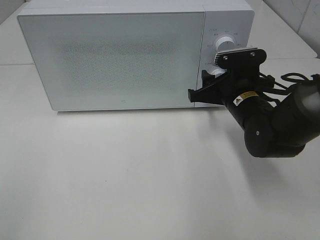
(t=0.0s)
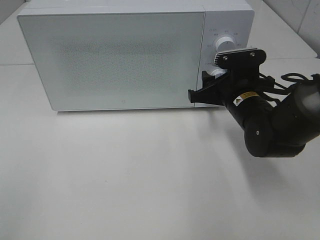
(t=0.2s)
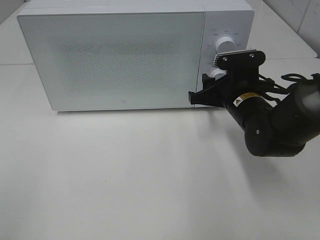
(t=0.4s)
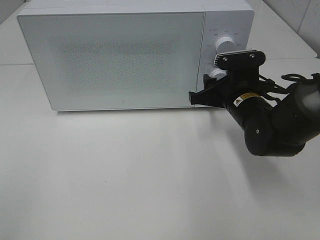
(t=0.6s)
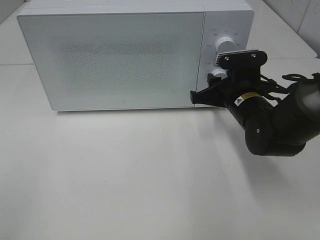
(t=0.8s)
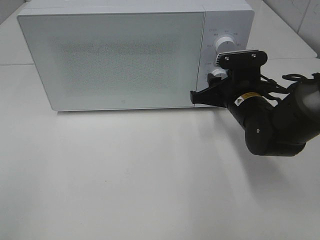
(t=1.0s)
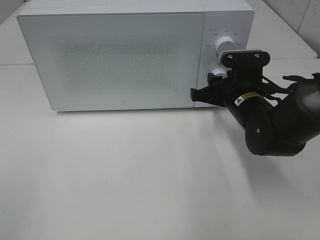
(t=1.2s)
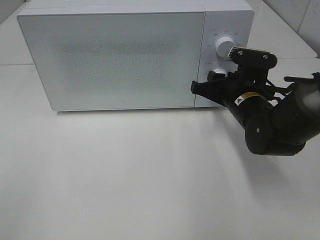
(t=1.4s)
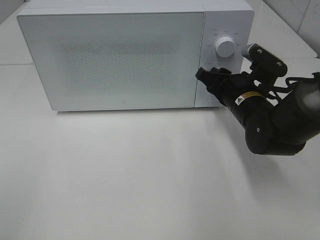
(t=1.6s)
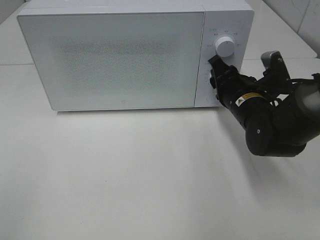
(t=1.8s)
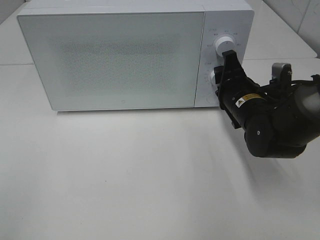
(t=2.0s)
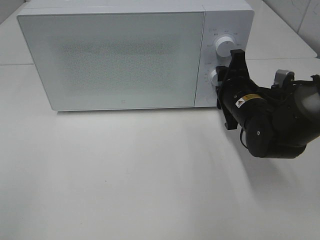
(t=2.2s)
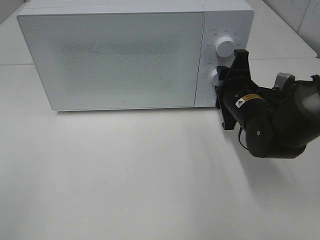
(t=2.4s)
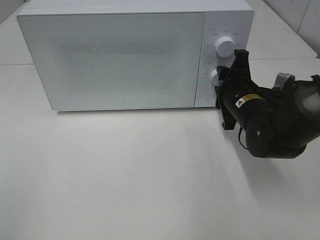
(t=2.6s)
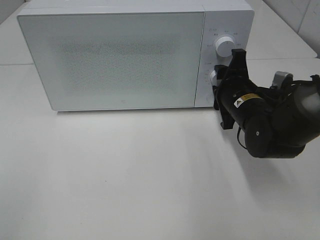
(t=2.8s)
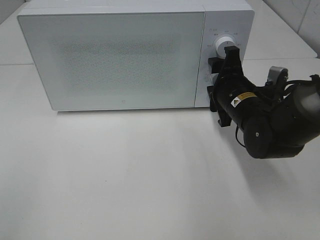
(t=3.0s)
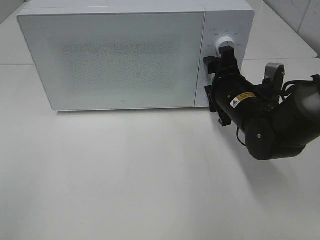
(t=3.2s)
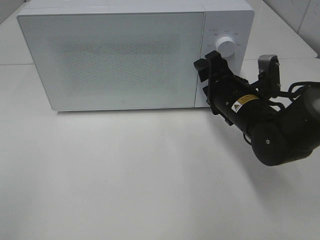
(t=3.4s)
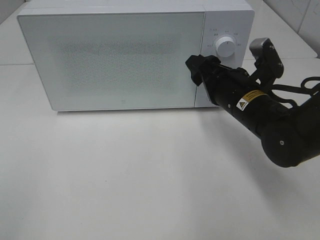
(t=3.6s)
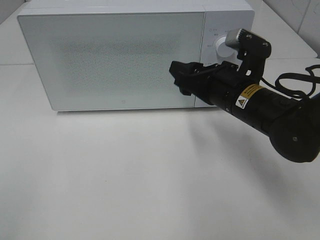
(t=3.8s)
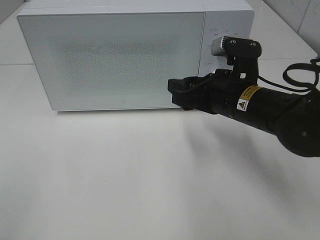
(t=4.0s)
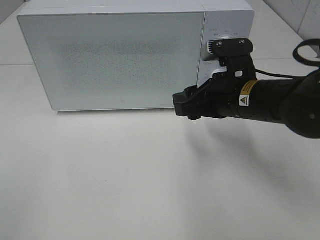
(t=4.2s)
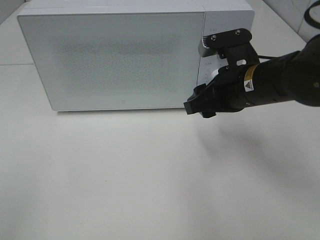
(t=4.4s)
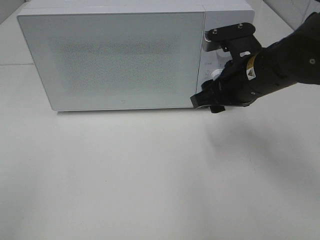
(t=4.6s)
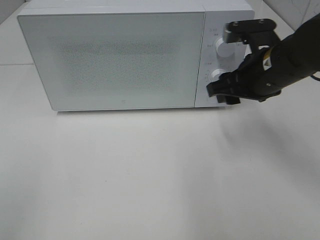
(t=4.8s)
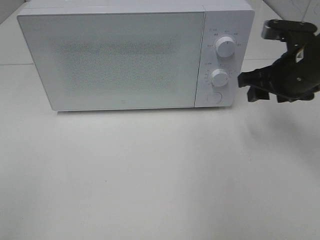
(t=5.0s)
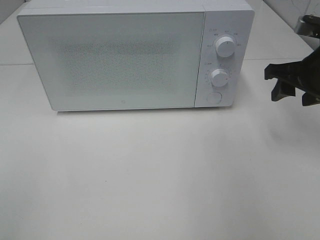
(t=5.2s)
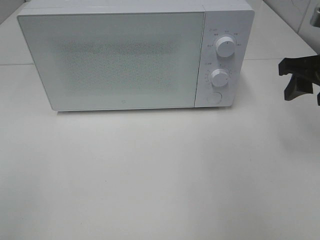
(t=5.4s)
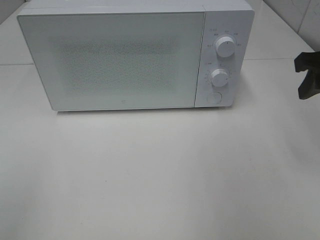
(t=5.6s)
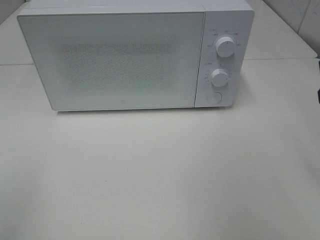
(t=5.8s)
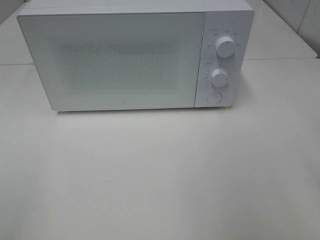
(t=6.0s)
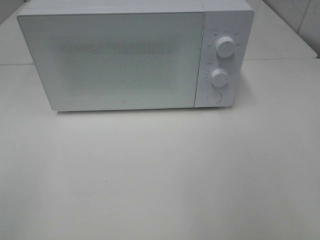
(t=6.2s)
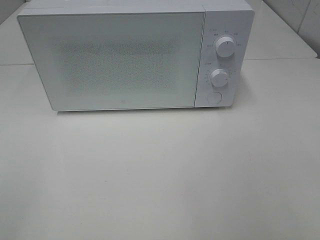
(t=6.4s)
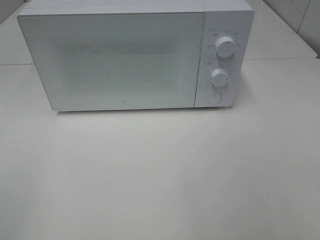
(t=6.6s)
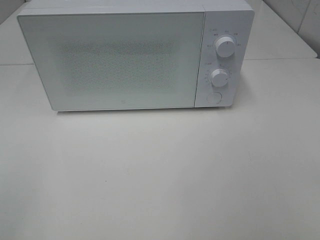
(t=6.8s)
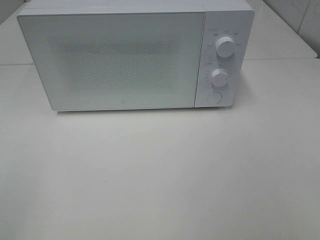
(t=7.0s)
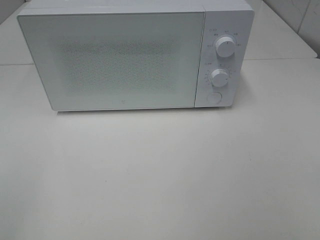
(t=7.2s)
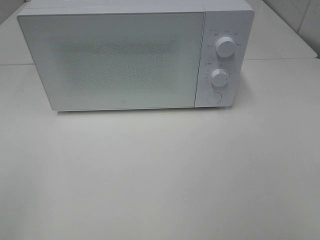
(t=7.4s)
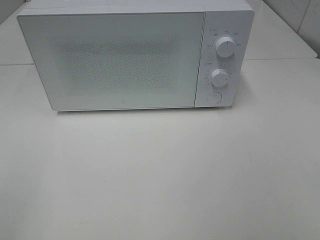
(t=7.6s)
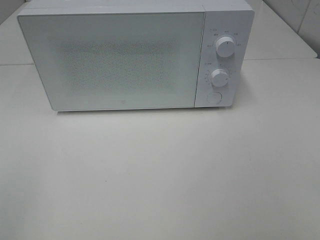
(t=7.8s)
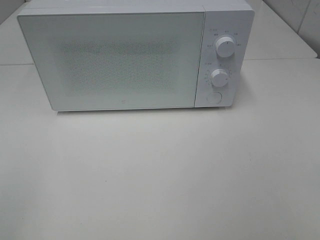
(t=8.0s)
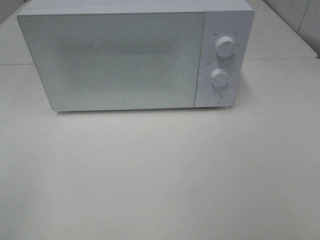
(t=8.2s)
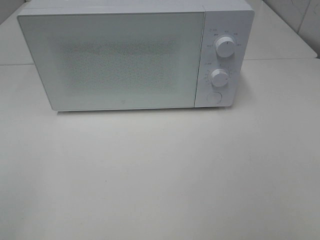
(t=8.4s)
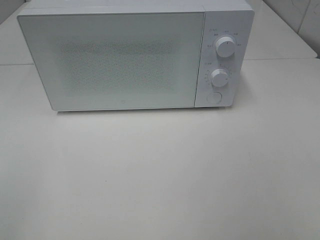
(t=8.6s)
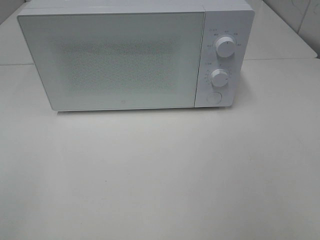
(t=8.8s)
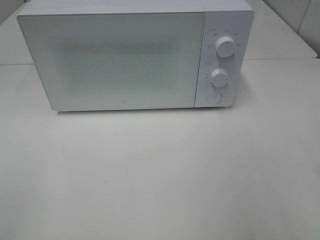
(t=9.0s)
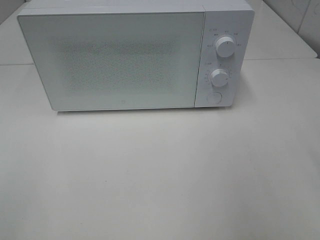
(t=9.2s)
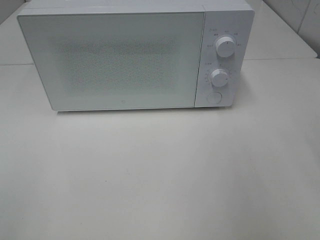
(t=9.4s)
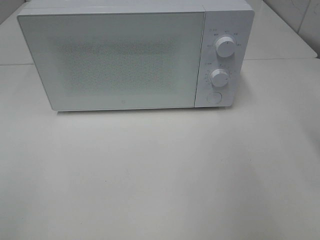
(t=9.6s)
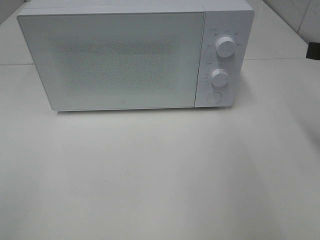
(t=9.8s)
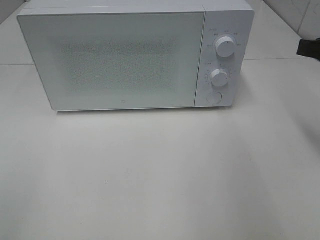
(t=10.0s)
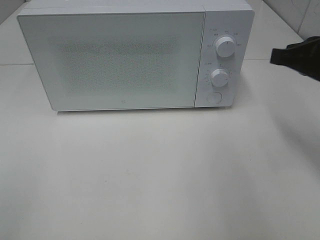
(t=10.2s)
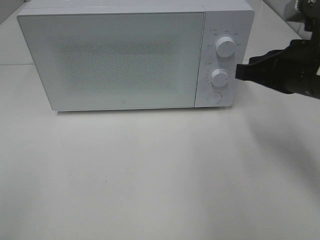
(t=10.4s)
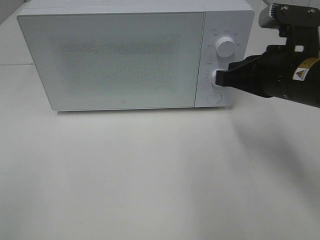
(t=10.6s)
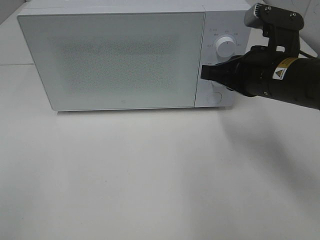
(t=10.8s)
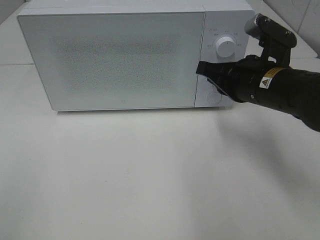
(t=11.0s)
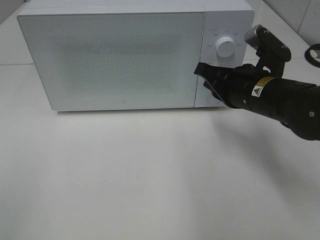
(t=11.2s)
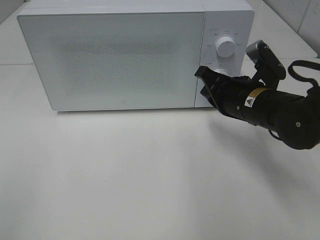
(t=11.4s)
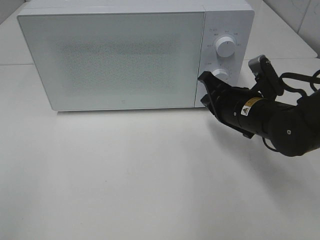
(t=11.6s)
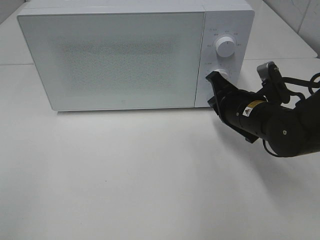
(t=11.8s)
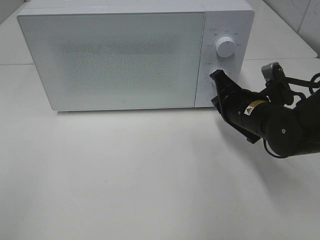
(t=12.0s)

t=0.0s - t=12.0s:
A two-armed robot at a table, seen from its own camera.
Task of the whole recording: Heat the burger.
Step, t=0.0s - t=2.8s: Right hand: twist timer button.
t=3.0s - t=4.4s: The right gripper is displaced upward by about 5 cm.
t=4.4s - t=6.0s: The right gripper goes roughly 20 cm to the right, backward and upward.
t=9.0s - t=10.4s: The right gripper shifts about 20 cm forward, to the left and downward, and closes its fingers.
t=10.4s - t=12.0s: The right gripper is displaced downward and forward by some 10 cm.

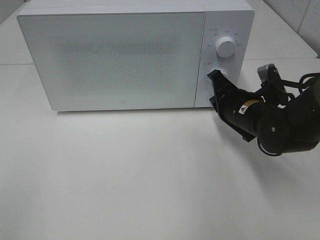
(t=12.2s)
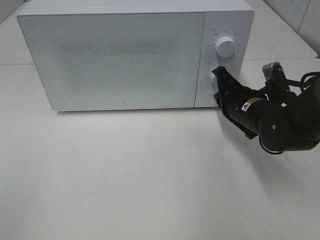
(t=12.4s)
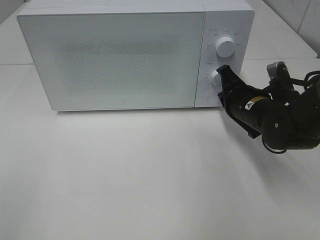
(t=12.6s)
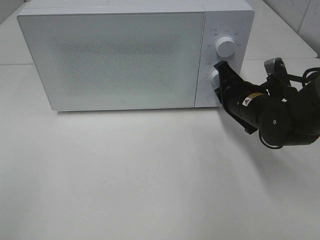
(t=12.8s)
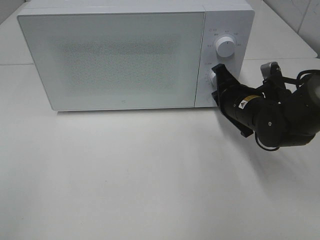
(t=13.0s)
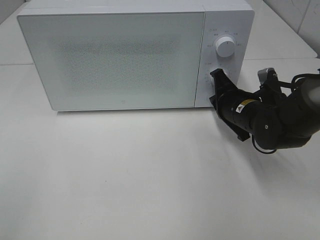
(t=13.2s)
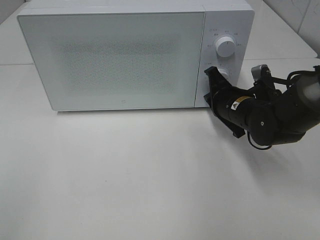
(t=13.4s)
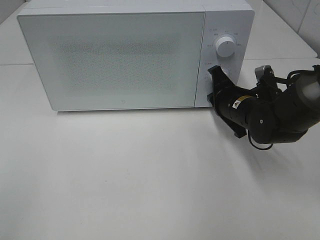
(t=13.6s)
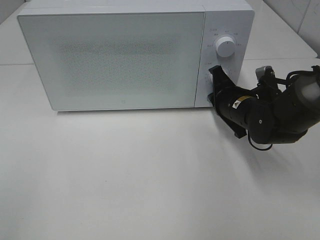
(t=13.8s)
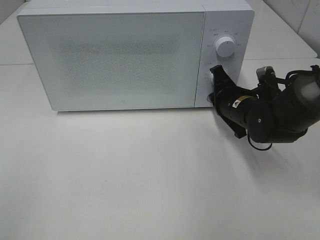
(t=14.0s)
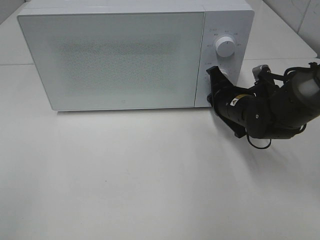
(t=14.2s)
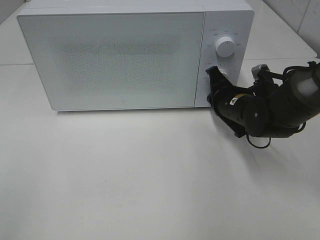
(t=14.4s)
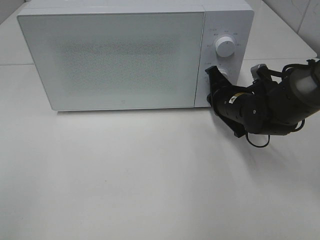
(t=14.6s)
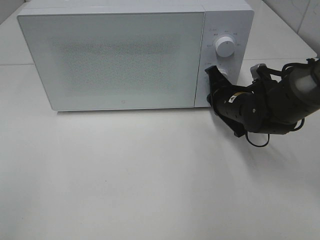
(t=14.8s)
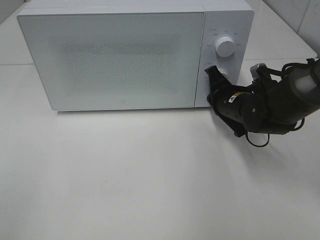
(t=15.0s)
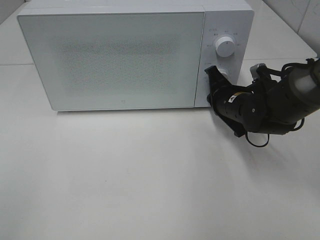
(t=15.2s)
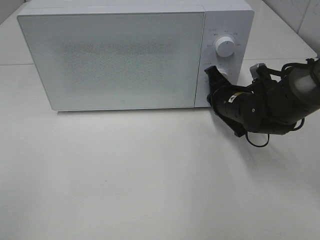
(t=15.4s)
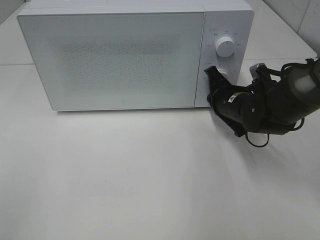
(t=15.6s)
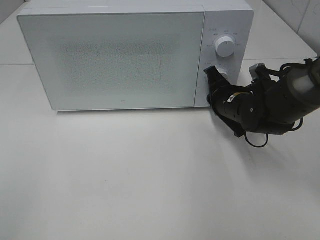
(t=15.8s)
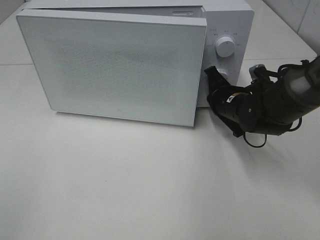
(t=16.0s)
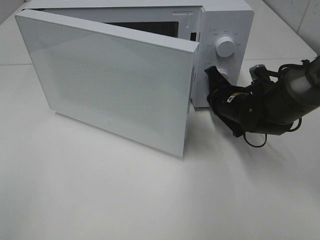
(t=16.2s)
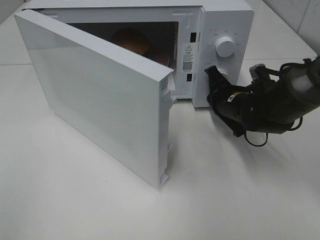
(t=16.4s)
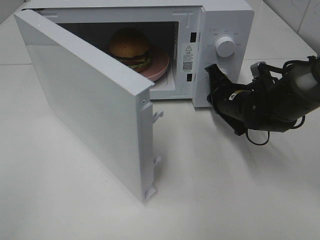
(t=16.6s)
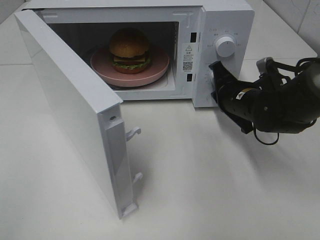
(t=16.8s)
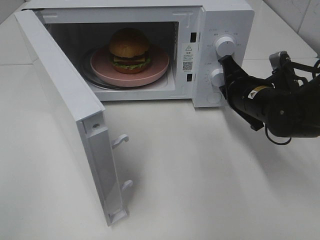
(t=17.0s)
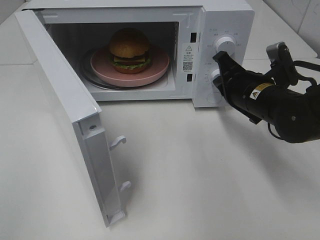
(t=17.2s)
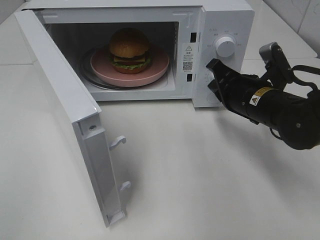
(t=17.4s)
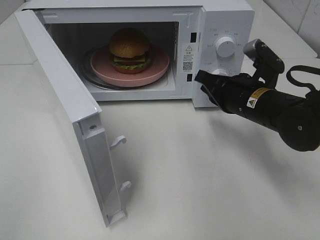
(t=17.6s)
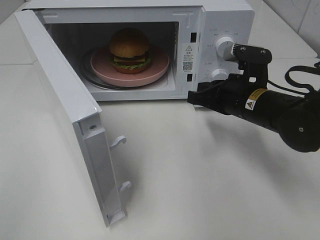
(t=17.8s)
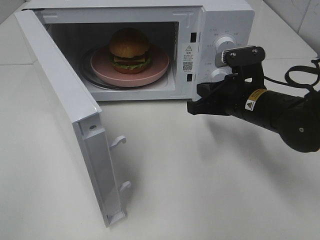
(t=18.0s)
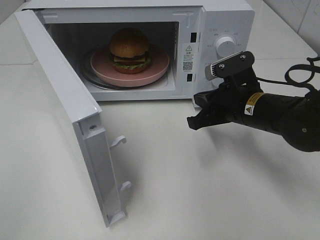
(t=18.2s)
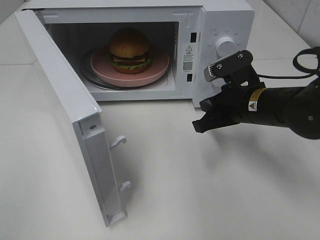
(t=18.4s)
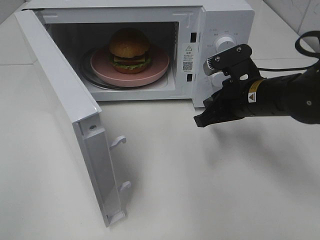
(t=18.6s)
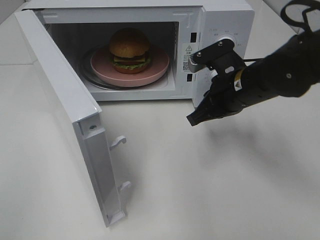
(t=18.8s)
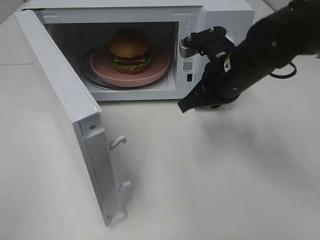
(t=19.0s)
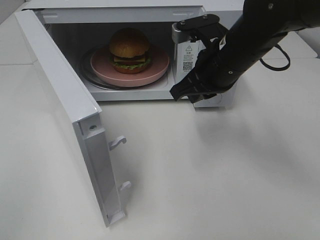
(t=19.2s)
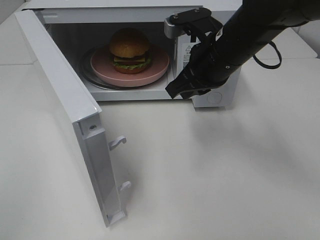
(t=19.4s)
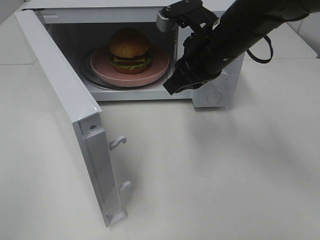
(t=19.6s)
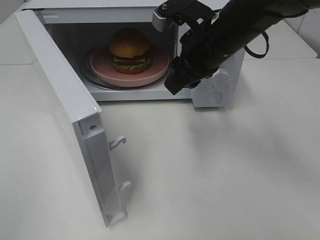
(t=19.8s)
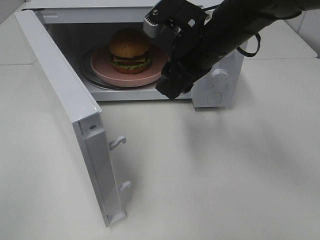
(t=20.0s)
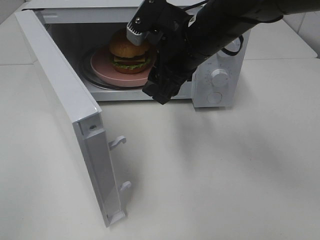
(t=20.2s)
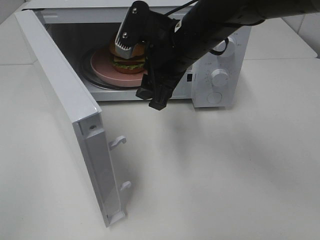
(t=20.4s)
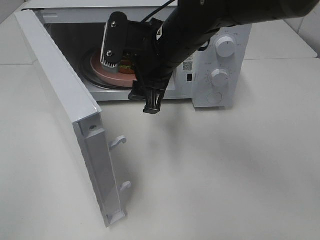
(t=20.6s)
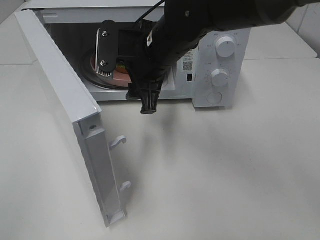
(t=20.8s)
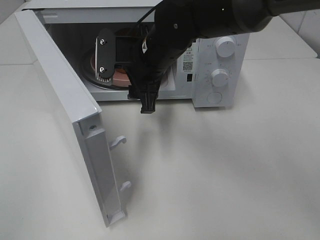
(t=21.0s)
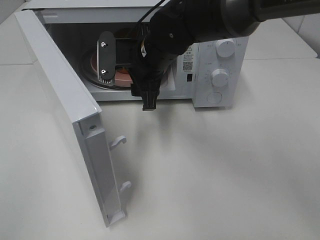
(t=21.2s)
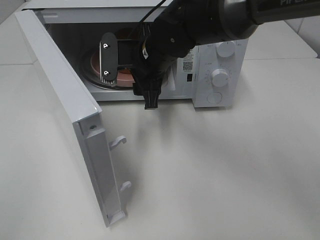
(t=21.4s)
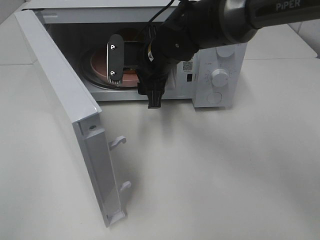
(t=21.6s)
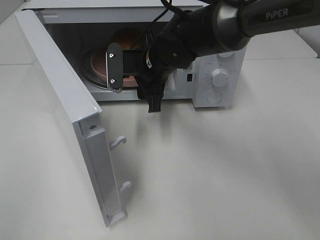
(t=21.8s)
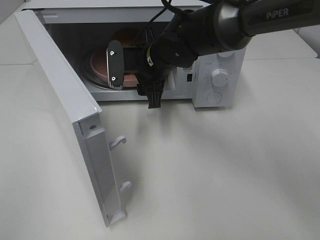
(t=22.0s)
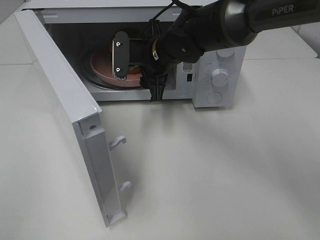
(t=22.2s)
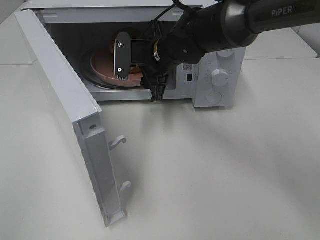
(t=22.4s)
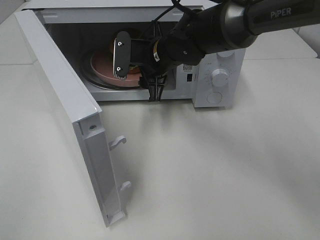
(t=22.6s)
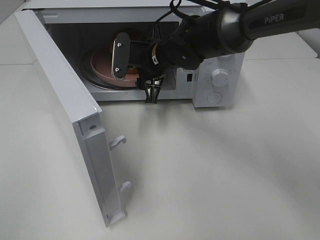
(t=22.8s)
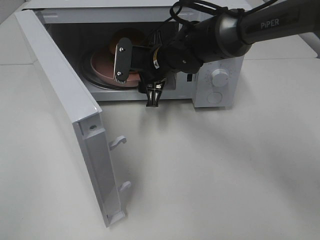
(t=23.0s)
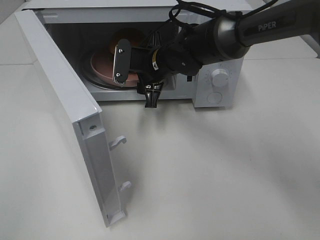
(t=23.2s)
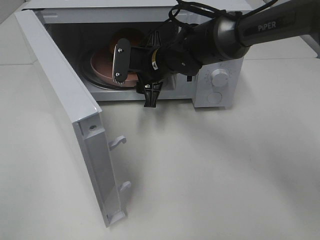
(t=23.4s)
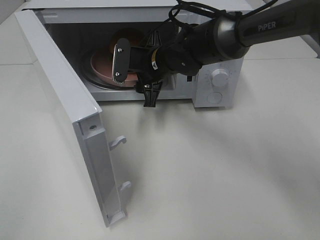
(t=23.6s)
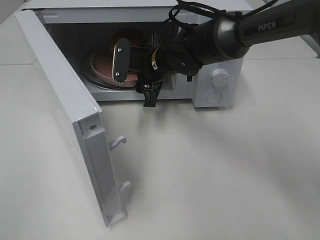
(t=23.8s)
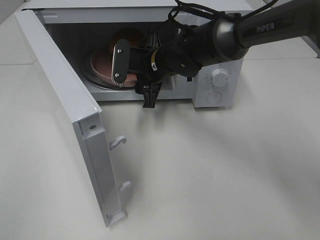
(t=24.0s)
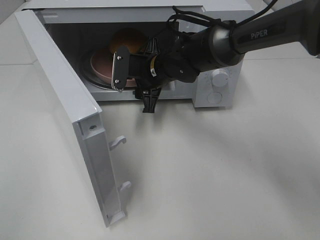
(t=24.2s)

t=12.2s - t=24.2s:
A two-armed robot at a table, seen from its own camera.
Task of the whole recording: Heat the burger.
Step, t=12.2s - t=16.8s: Right hand: press the switch.
t=12.2s - t=15.2s: The grippers stay close to where they were, moving slightly.
t=16.6s - t=18.2s: The right gripper moves backward, approximately 5 cm.
t=18.2s - t=19.8s: The right gripper shifts about 10 cm upward and to the left, and opens.
t=19.8s - t=21.2s: The right gripper heads to the left, covering some 10 cm.
t=21.2s - t=22.6s: The right gripper shifts by roughly 5 cm.
t=22.6s - t=24.2s: The grippers stay close to where they were, moving slightly.
